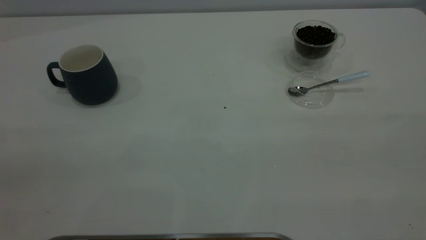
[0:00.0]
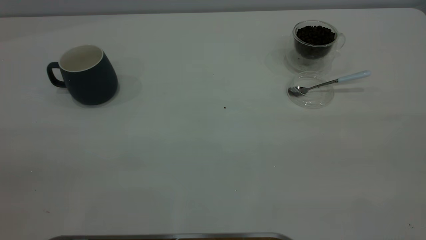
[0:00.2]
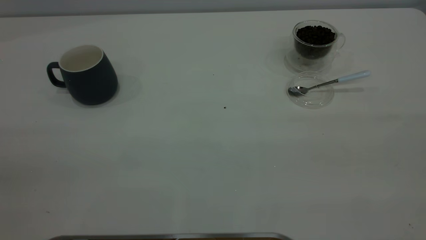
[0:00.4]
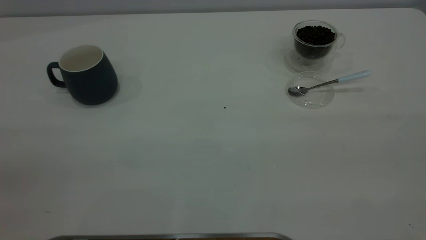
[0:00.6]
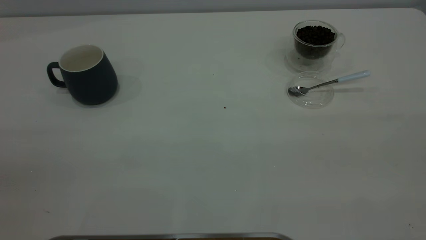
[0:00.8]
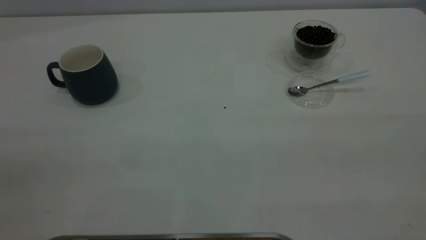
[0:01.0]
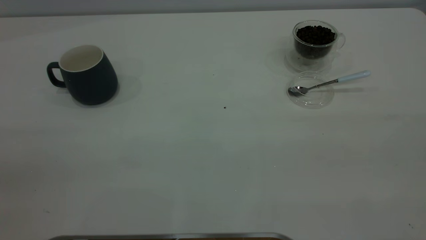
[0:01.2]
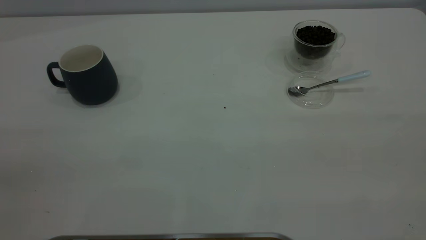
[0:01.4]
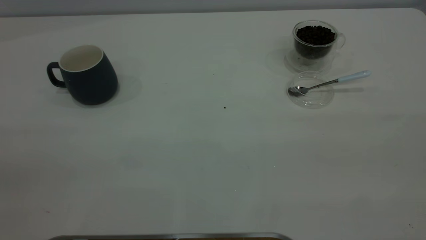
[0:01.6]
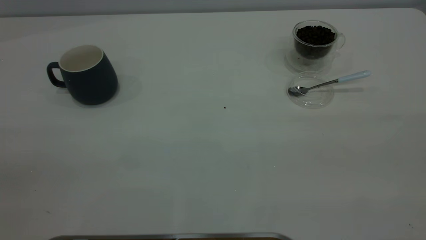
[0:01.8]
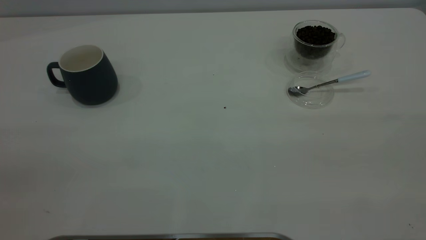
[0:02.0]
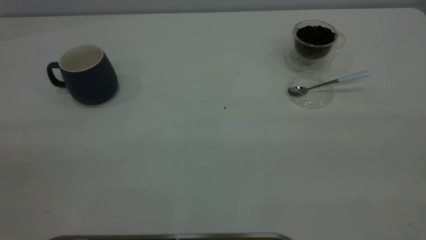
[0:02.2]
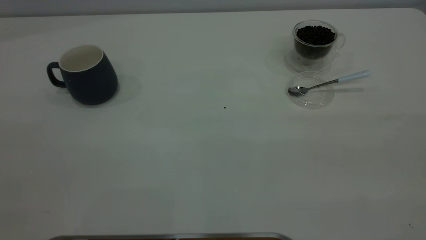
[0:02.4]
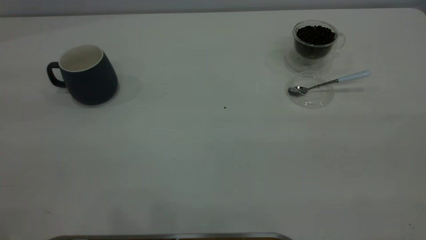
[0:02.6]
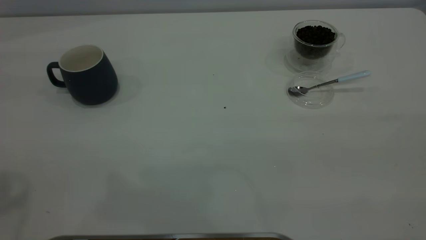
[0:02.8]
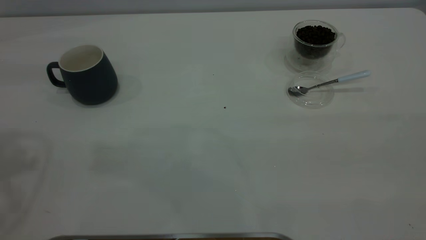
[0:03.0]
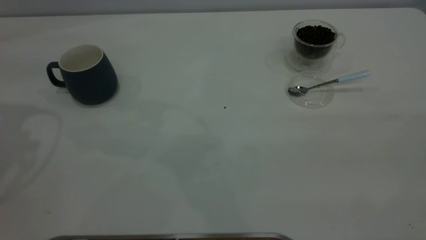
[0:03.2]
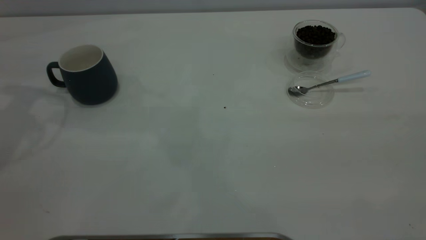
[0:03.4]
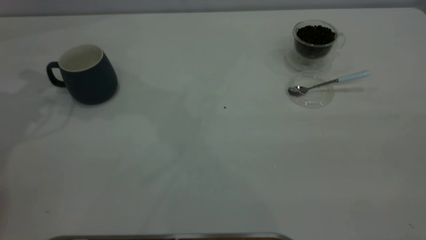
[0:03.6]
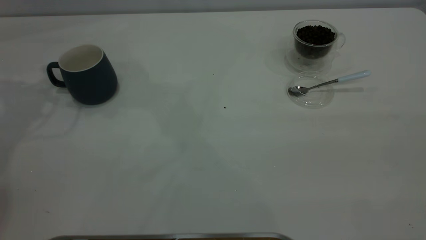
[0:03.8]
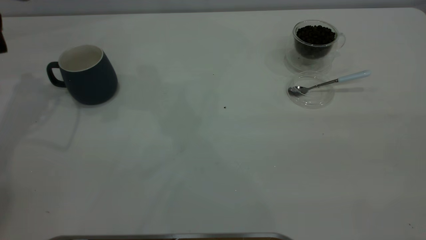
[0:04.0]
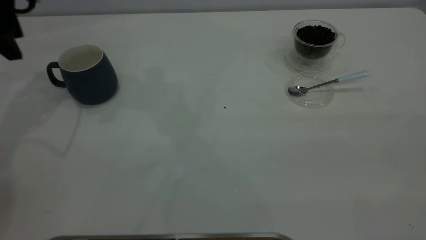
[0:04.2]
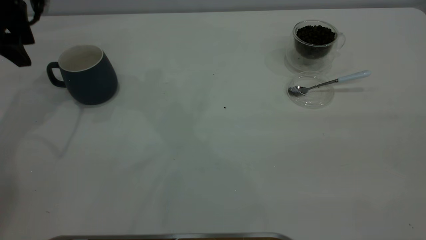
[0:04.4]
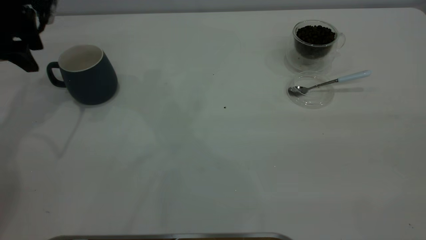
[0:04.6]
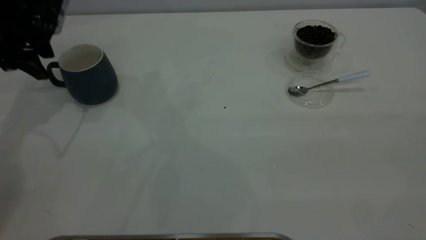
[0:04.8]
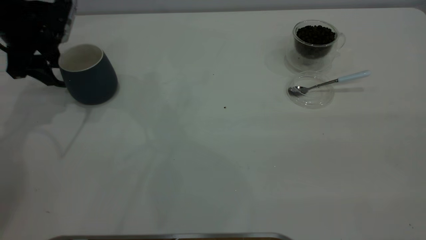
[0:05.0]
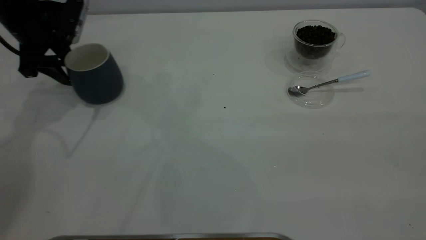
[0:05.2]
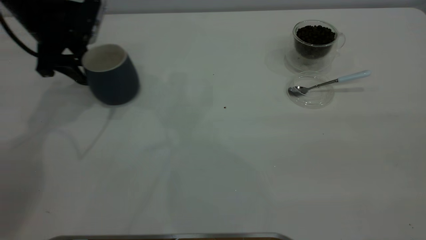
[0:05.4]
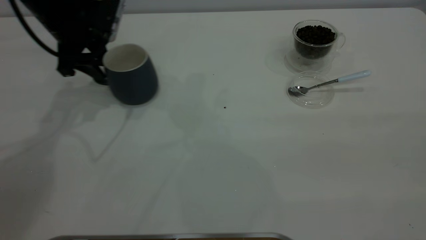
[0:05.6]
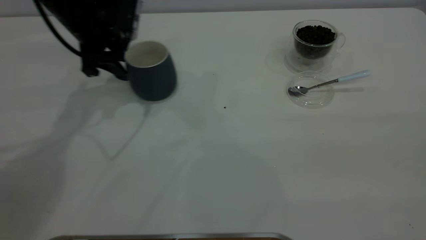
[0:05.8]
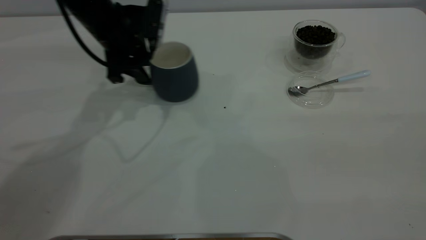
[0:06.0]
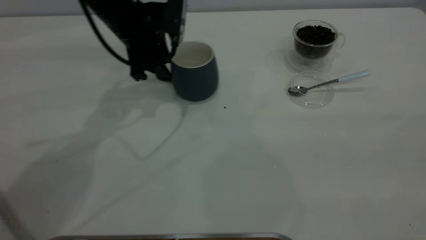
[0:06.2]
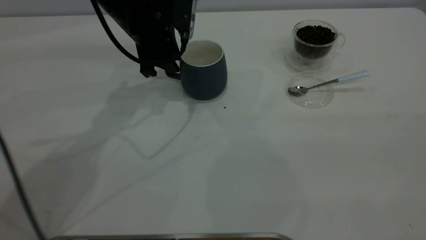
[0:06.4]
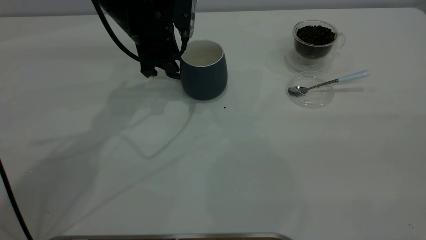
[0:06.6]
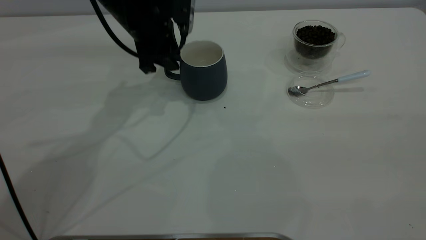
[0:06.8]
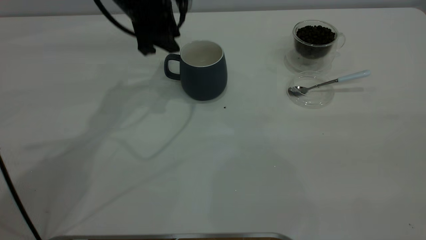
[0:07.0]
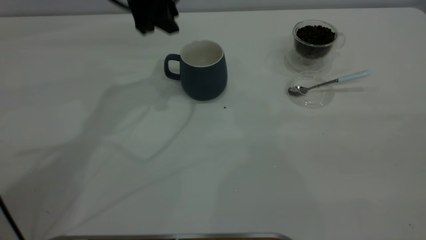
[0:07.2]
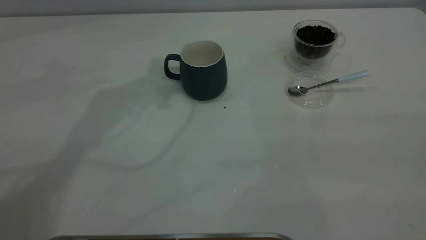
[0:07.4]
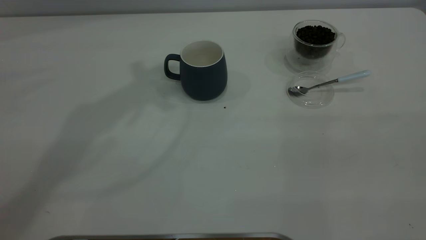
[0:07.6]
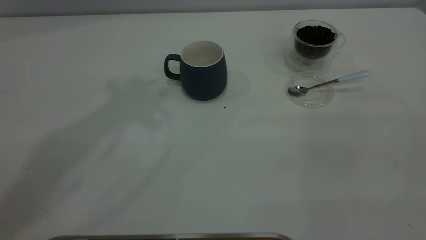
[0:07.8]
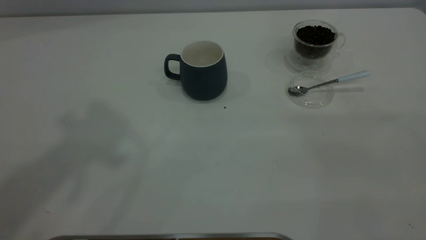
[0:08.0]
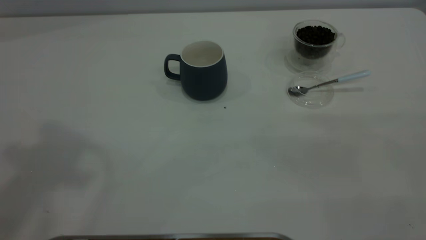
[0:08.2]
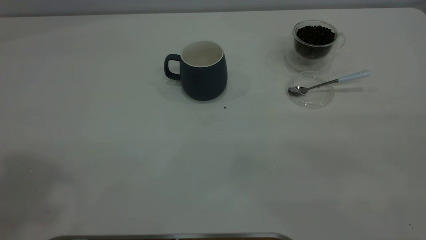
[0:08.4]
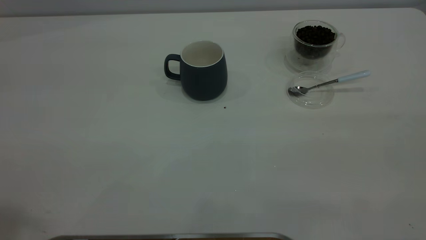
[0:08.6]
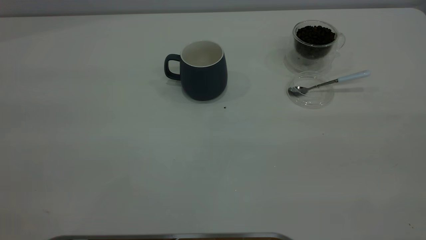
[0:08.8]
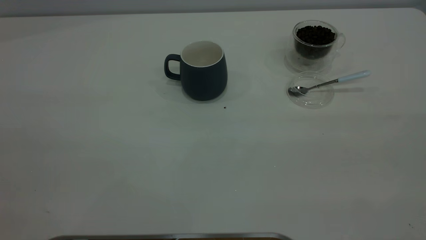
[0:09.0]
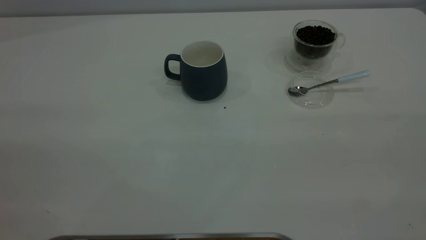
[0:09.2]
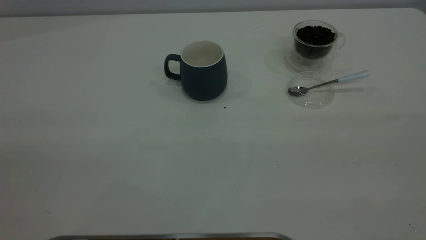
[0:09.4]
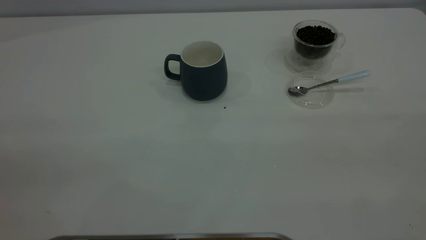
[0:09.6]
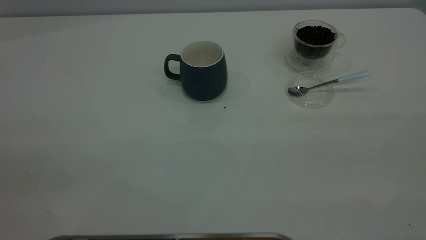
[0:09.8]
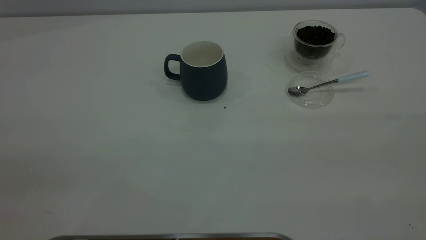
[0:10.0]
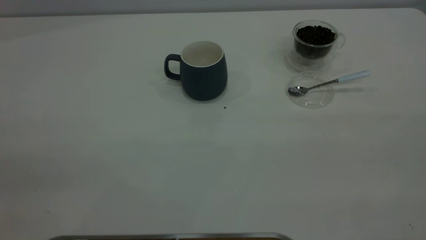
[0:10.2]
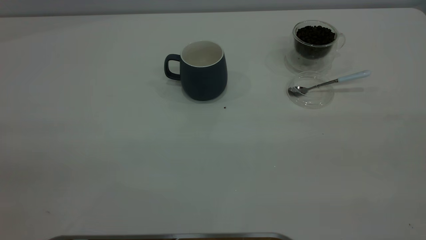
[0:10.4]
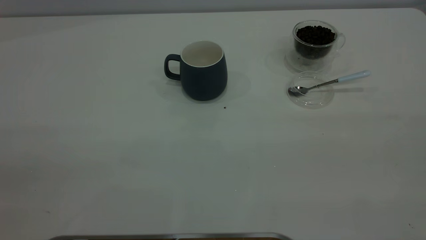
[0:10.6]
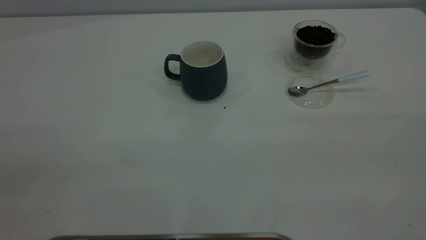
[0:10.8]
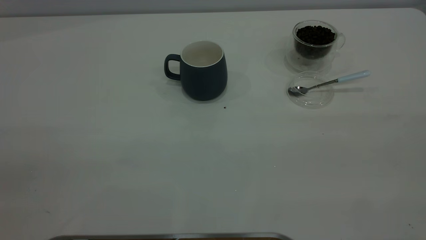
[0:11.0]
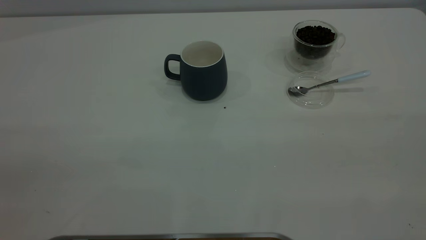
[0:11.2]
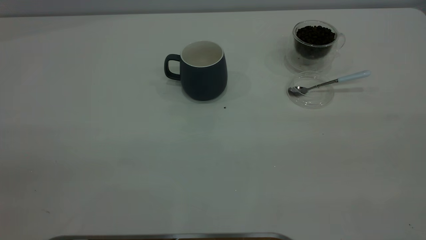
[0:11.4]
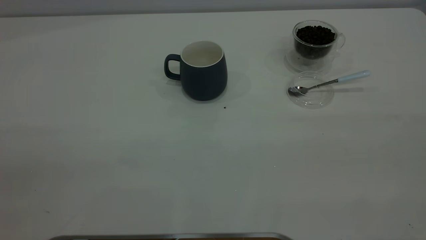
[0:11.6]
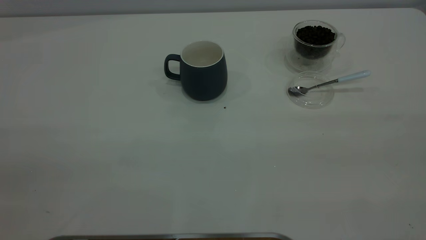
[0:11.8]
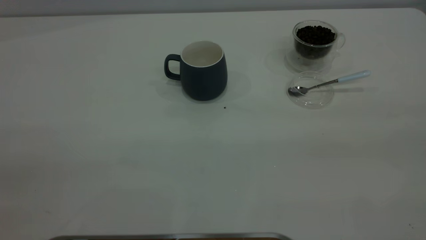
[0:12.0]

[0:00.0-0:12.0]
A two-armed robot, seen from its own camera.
Task of the whole recording: the left gripper place the grey cup in the center of the table, the right gripper take the blue spoon from the cup lid and scoop out the coffee beans from the coffee cup and put them into the grey cup, the right gripper put the spoon back into the cup lid.
Step, 0:00.0 to 0:07.0: Move the cup to the center of view.
0:00.0 to 0:01.6: Neither gripper changes place.
0:03.0 to 0:04.4: The left gripper shifts some 25 cm forward and downward.
0:04.4 to 0:06.0: The left gripper moves to the right and downward, roughly 15 cm, and closes up.
0:06.0 to 0:07.6: The left gripper moves upward, approximately 30 cm.

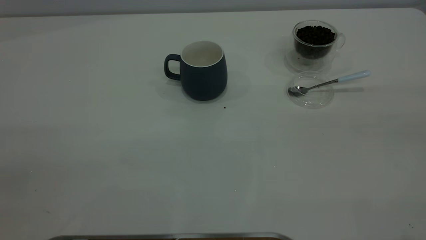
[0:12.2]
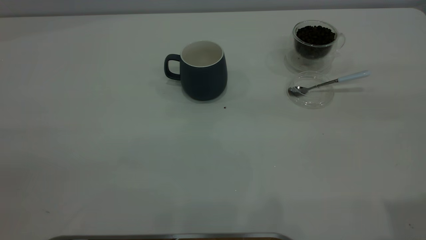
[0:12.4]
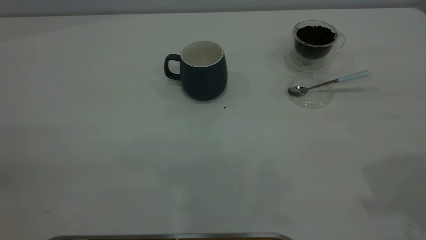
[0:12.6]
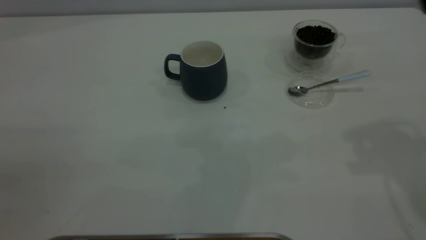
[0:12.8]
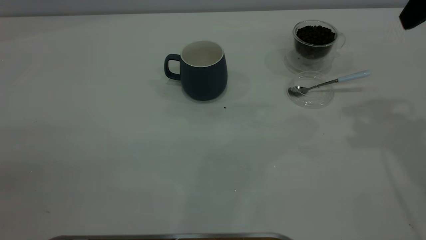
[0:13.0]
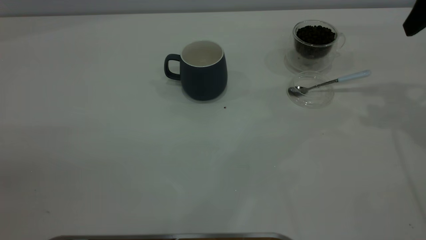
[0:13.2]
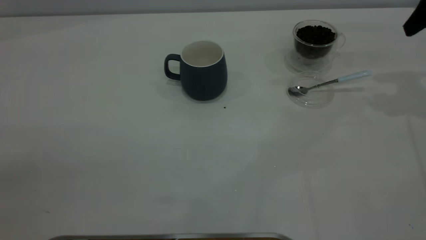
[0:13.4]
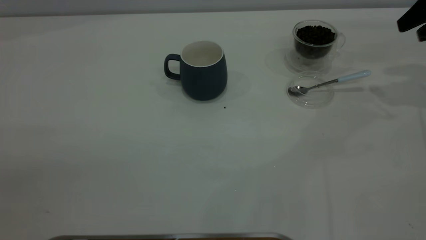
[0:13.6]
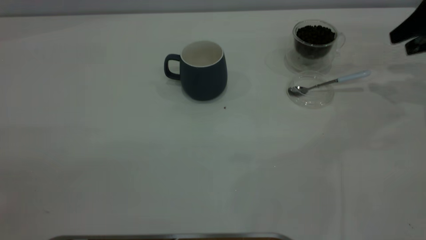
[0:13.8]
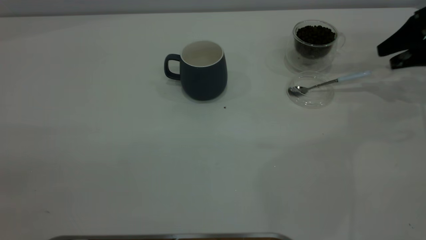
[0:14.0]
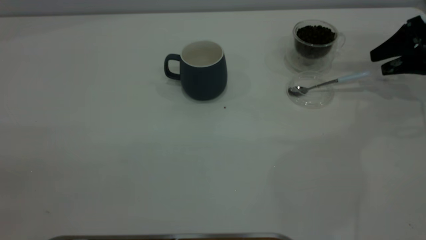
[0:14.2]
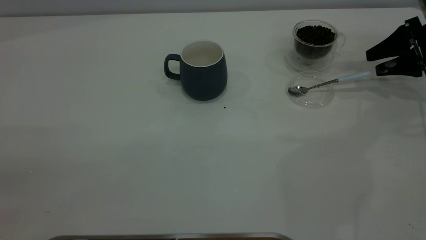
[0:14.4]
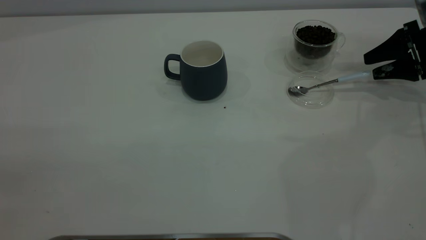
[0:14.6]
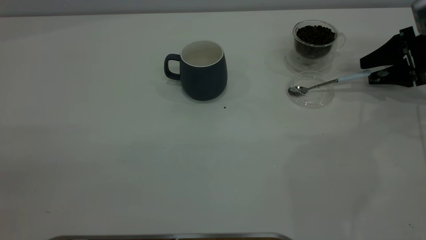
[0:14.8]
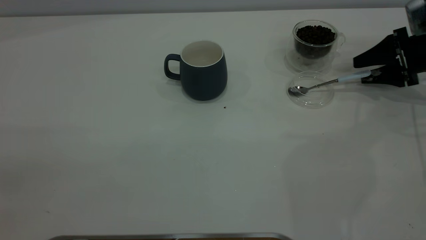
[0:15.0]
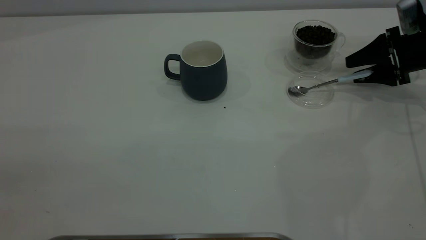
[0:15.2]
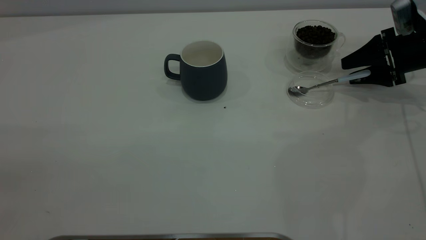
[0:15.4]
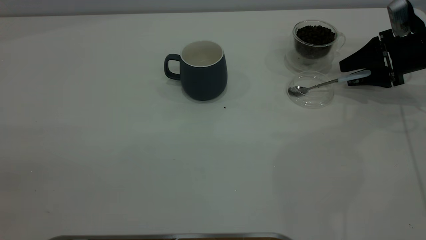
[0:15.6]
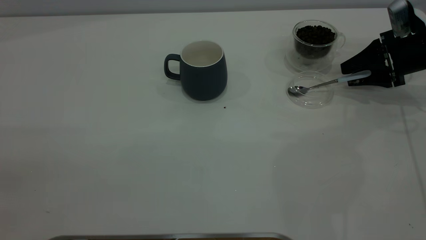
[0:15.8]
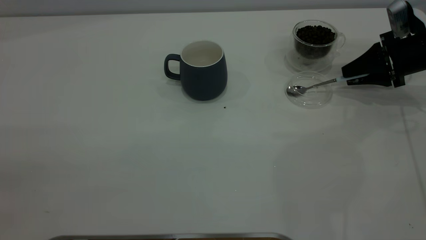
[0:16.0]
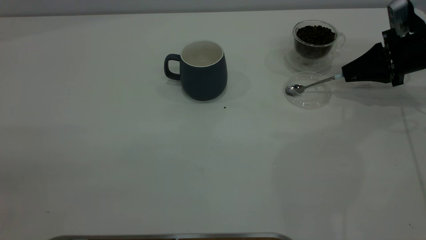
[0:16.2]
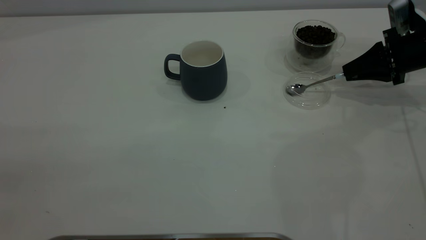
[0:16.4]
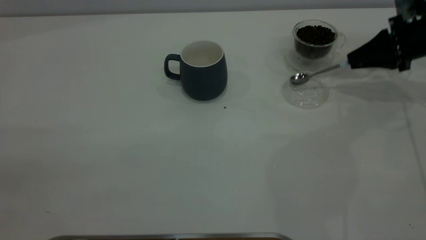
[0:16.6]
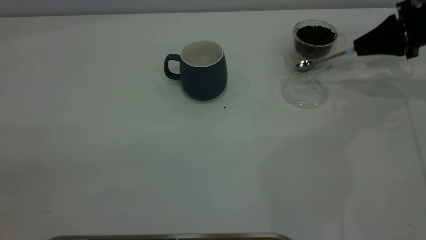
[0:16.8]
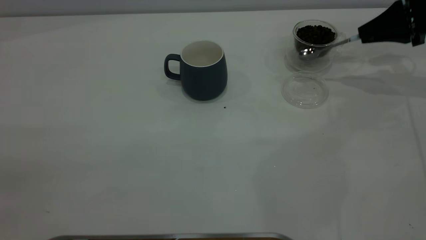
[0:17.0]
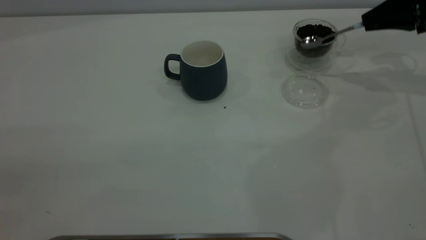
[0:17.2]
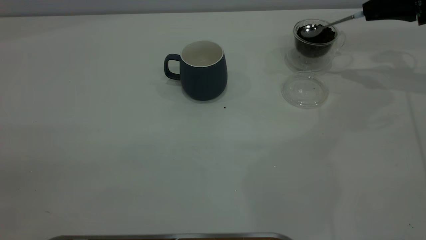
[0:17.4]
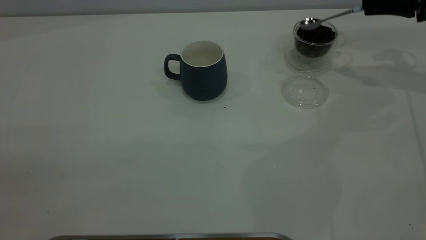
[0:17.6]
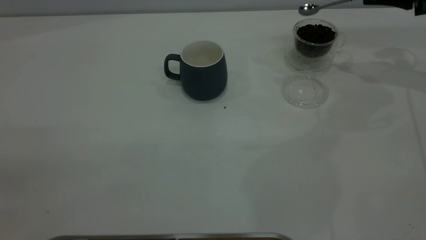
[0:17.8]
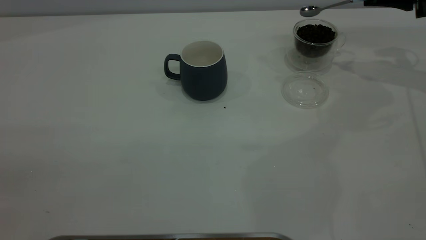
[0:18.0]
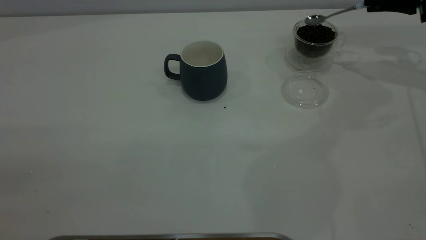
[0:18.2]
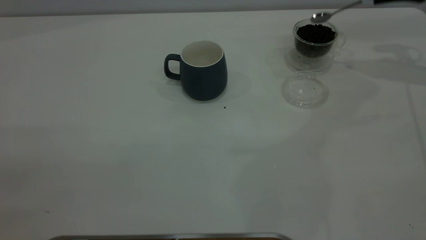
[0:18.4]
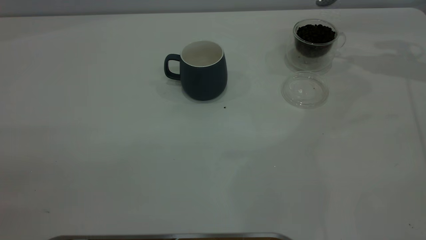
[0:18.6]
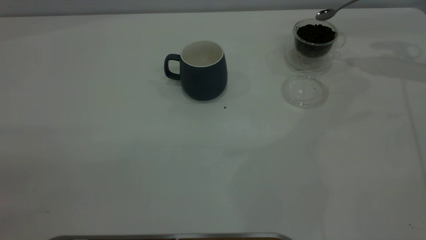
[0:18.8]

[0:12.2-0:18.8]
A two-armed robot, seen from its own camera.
Task of the whole recording: the left gripper place the grey cup in the center of the table, the right gripper take the blue spoon from the cup lid and scoop out the coffee beans from the coffee cup and put them into the grey cup, the right gripper put the spoon back into the cup lid.
Step, 0:12.2 to 0:16.8: Pick up the spoon.
0:12.2 to 0:13.8: The right gripper heads forward and downward, covering some 40 cm.
0:13.8 to 0:15.4: The right gripper shifts roughly 10 cm downward.
0:15.4 to 0:17.2: The right gripper shifts roughly 10 cm upward, and closes up.
0:17.2 to 0:18.8: The right gripper changes place by approximately 5 cm.
